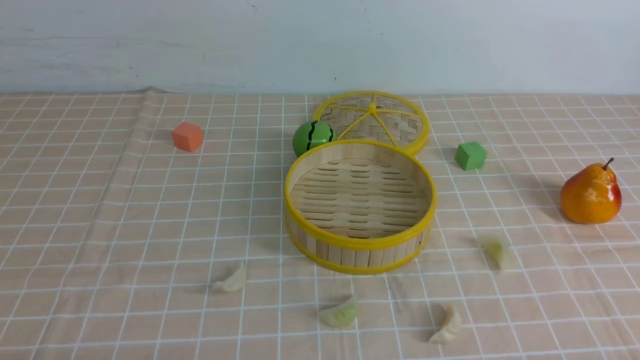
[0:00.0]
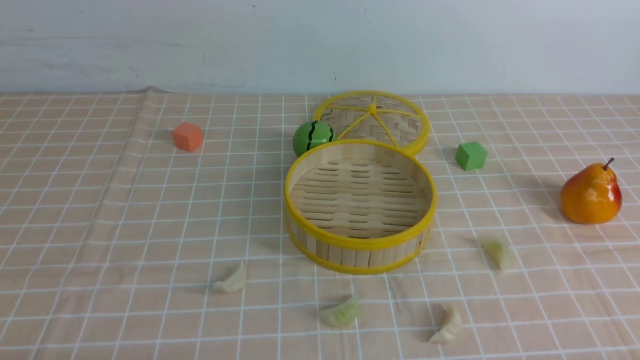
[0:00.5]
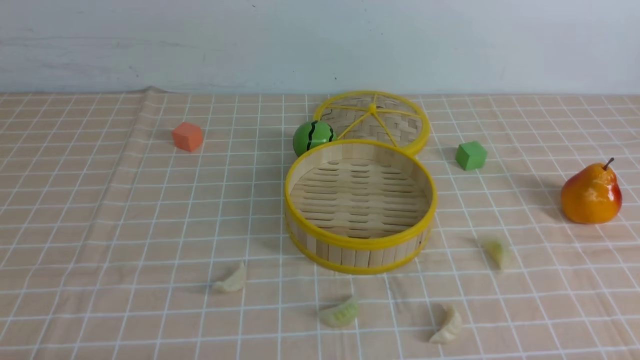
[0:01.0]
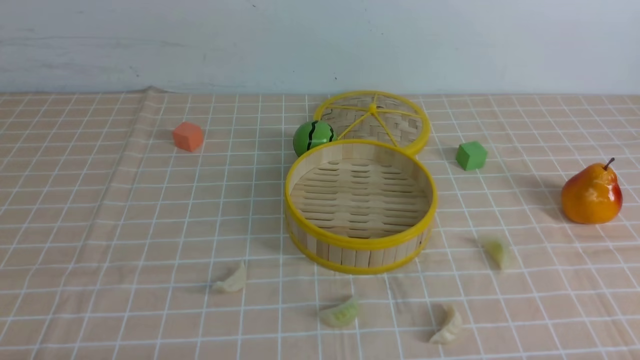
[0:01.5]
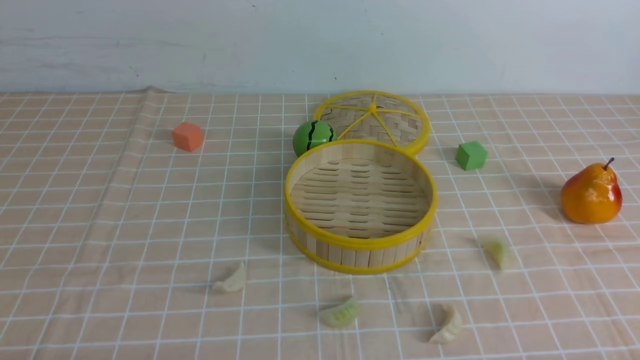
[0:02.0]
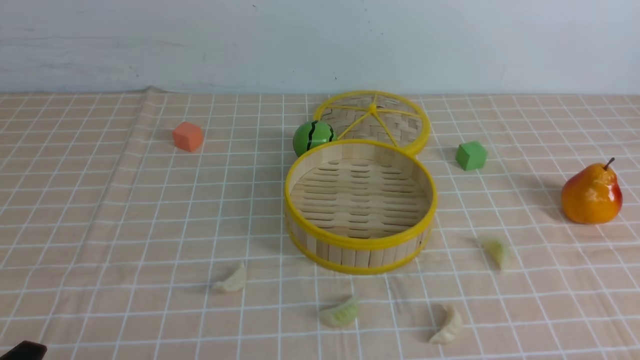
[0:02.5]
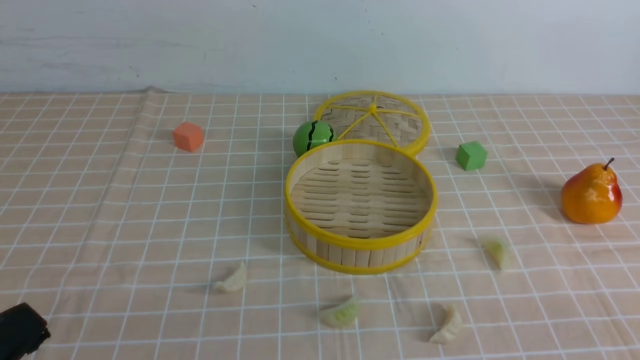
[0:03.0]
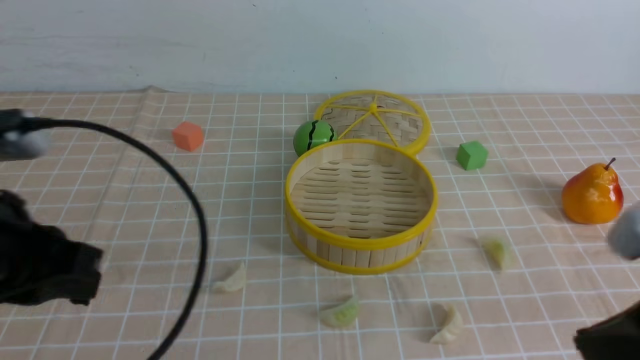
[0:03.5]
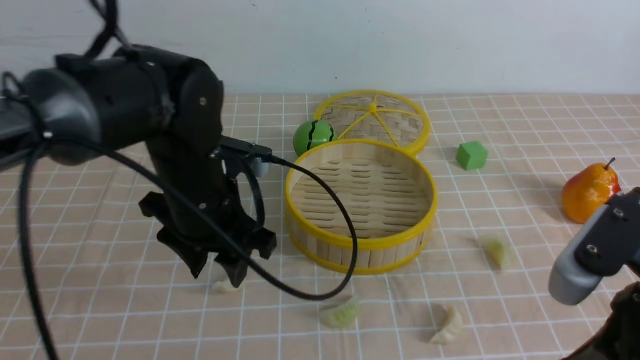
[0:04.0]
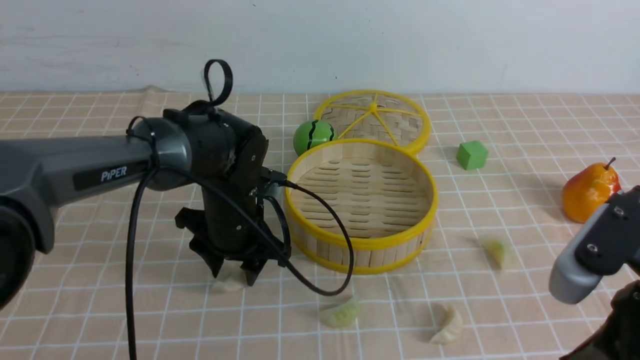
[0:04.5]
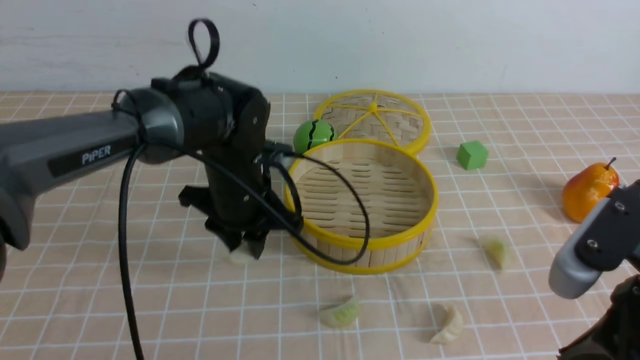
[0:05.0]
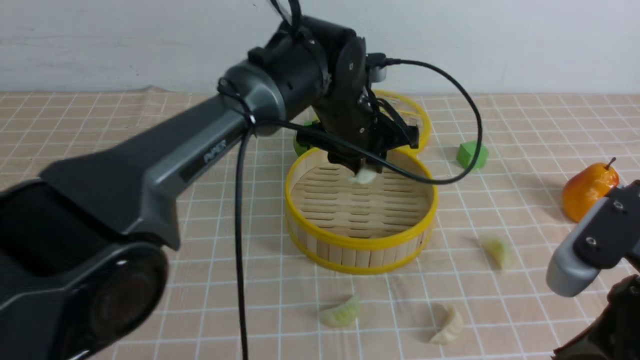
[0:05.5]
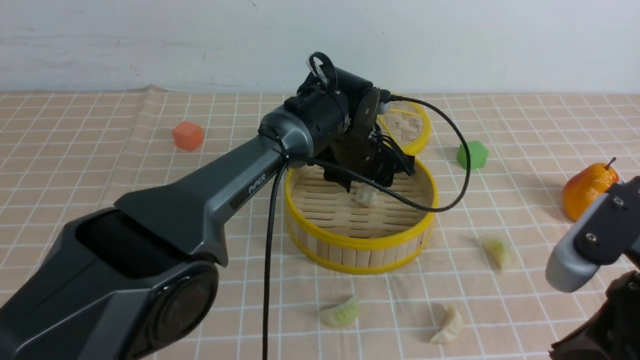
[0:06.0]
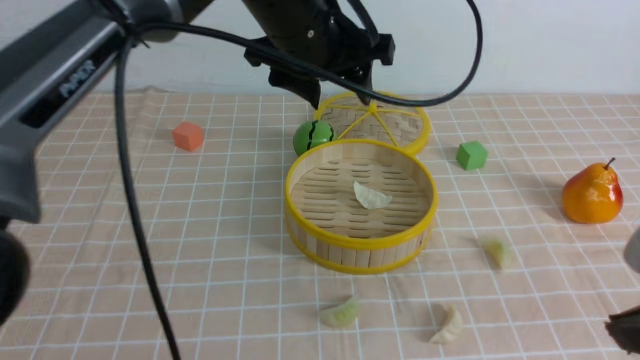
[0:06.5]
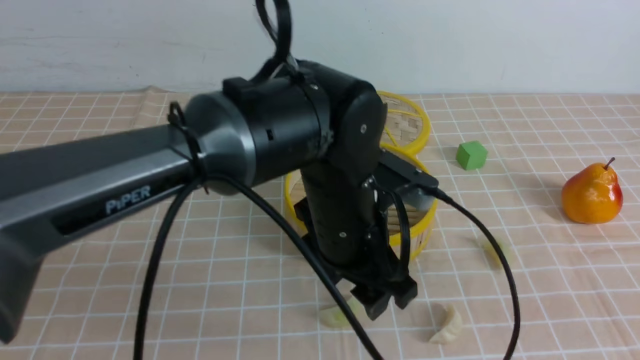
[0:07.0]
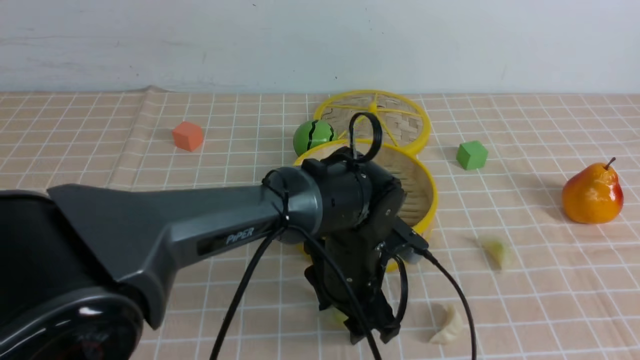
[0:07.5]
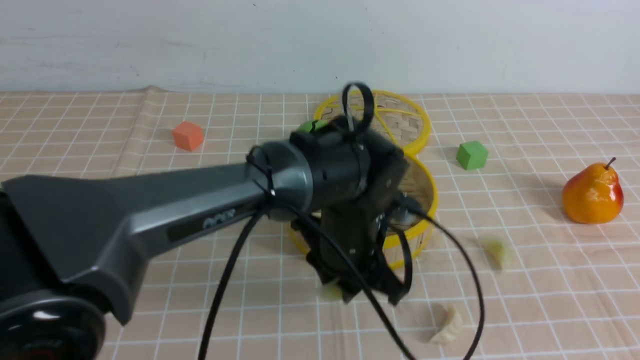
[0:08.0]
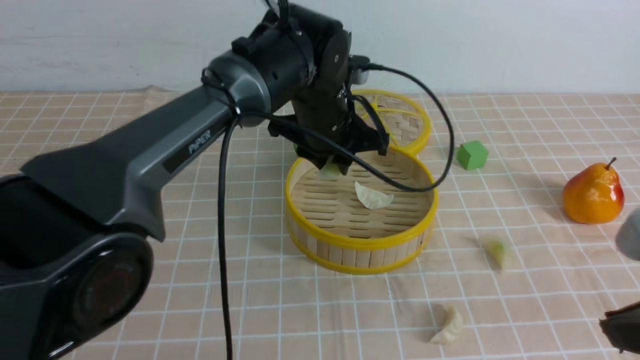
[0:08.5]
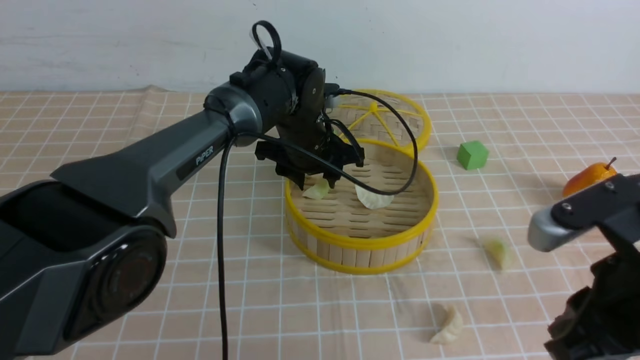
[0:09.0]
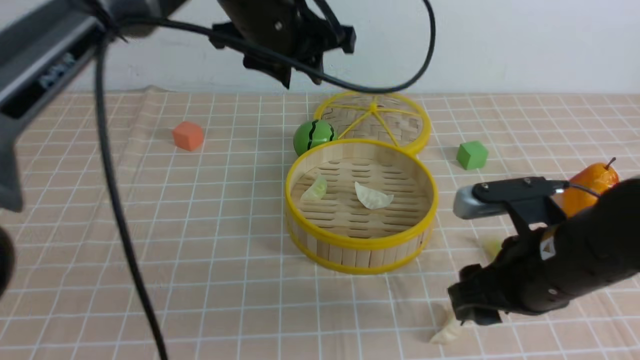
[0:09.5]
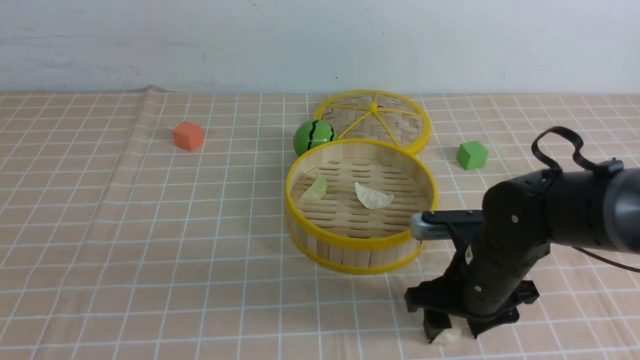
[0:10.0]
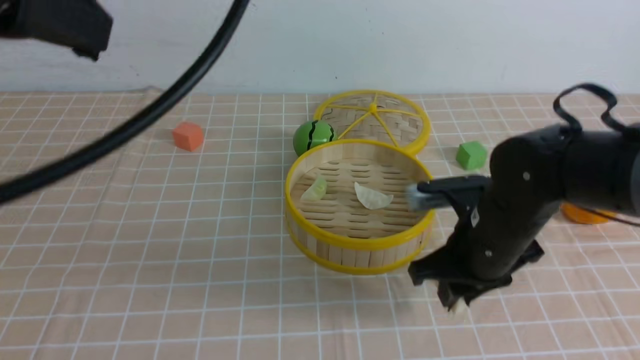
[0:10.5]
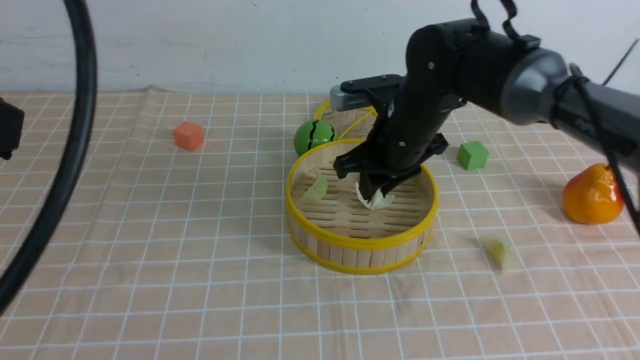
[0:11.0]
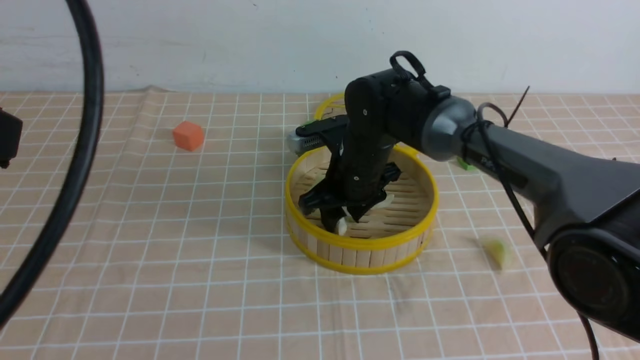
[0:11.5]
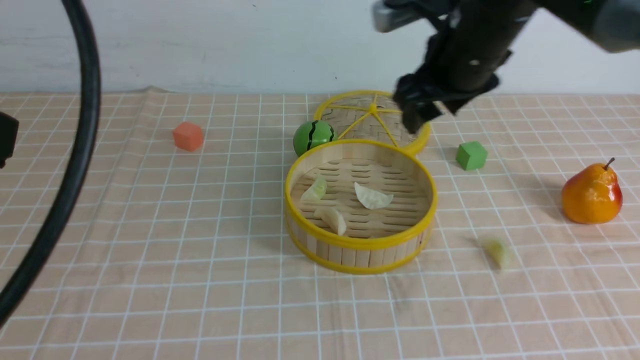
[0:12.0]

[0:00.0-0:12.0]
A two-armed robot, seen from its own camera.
Task of the whole recording: put the dumplings into the steamer on the table with the brown tablecloth.
Step, 0:00.0 to 0:04.5: use the left arm to grab a dumpling.
Step, 0:05.0 to 0:06.0: use the left arm to put the dumpling into the steamer.
Step, 0:06.5 to 0:07.5: use the left arm to grab a dumpling.
Step, 0:08.0 to 0:09.0: use the left arm to put the dumpling into the steamer.
Step, 0:09.5 to 0:10.0: use the right arm to grab a dumpling.
Step, 0:10.5 to 0:11.5: use the right arm to put the dumpling into the steamer.
0:02.0 to 0:04.0: The left gripper is displaced forward and to the right by some 30 cm, and closes and opens again, while the right gripper heads upward, to the left and forward, covering some 20 cm, and closes.
0:04.0 to 0:06.0: The left gripper shifts approximately 20 cm to the right and forward.
0:06.0 to 0:08.0: The right gripper changes place by approximately 5 cm. The left gripper moves up and down over some 20 cm, changing direction 2 times, and closes.
0:08.0 to 0:10.0: The right gripper heads forward, downward and to the left, covering about 30 cm, and opens; the left gripper goes about 35 cm upward and to the left, and closes up.
0:10.0 to 0:12.0: The right gripper shifts roughly 20 cm upward and forward, and closes and opens again; the left gripper moves backward and to the left, approximately 20 cm.

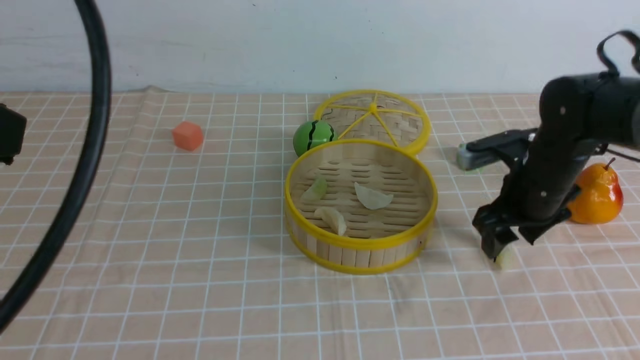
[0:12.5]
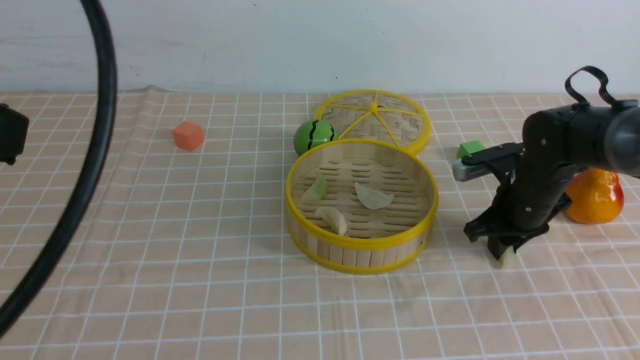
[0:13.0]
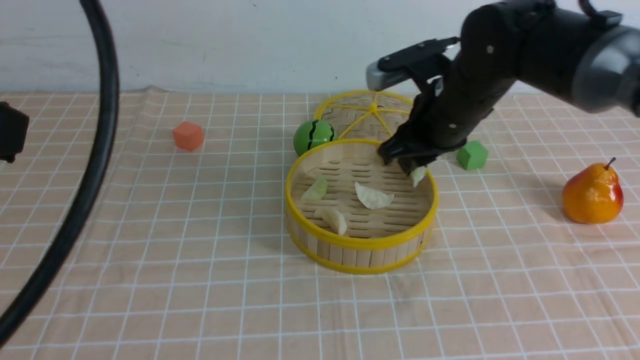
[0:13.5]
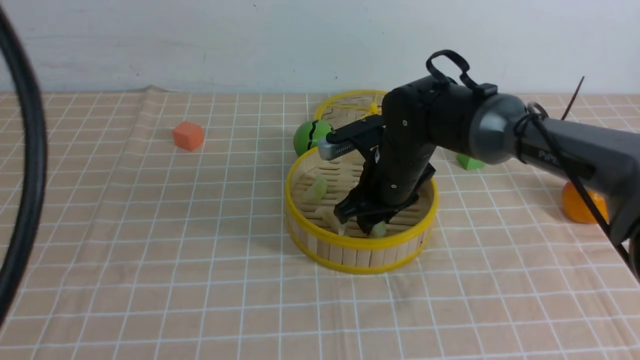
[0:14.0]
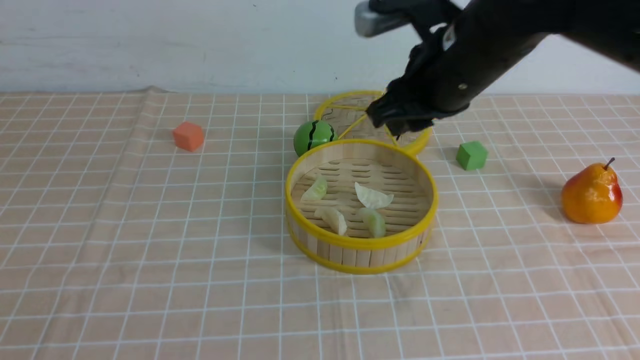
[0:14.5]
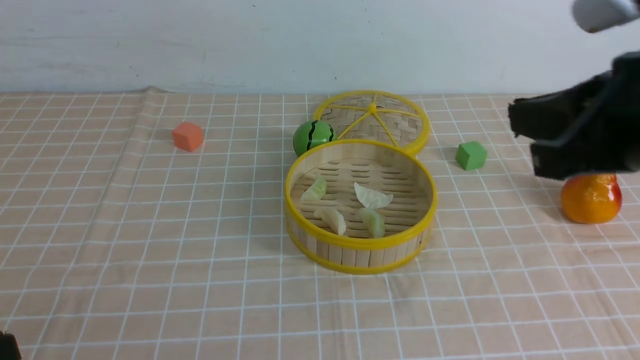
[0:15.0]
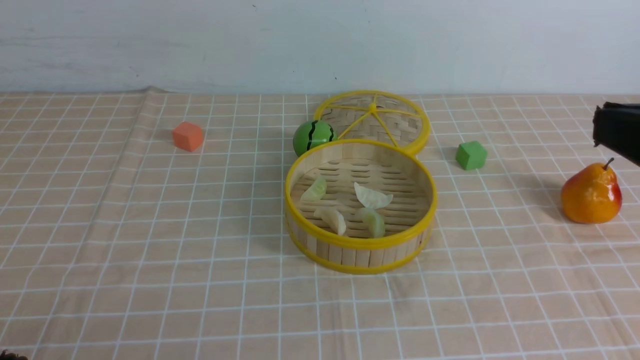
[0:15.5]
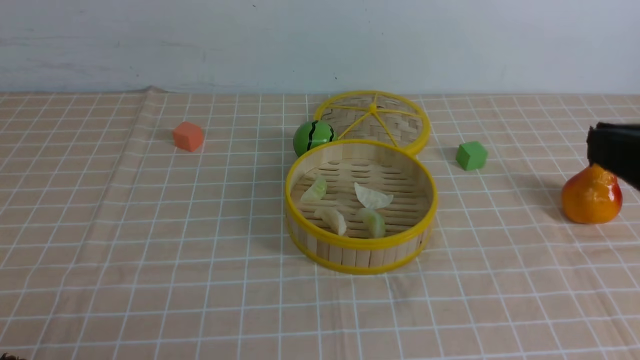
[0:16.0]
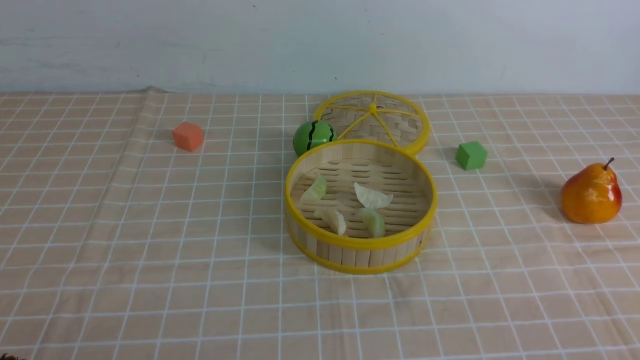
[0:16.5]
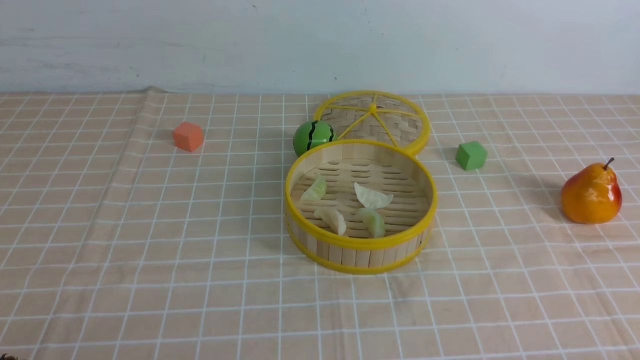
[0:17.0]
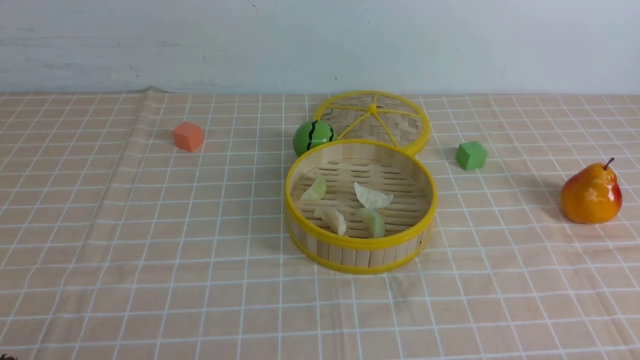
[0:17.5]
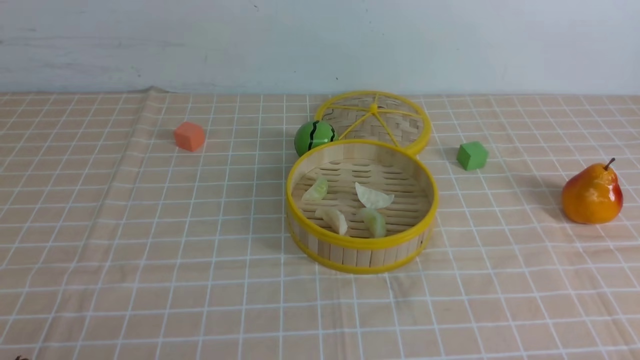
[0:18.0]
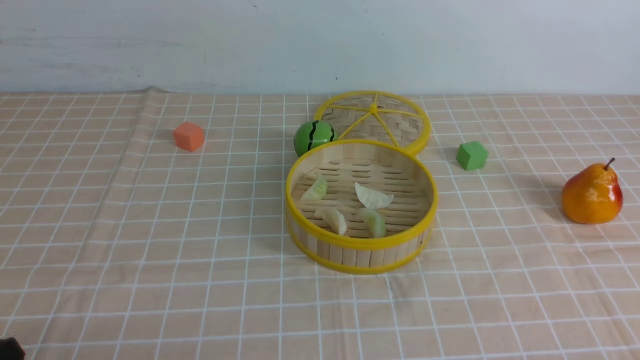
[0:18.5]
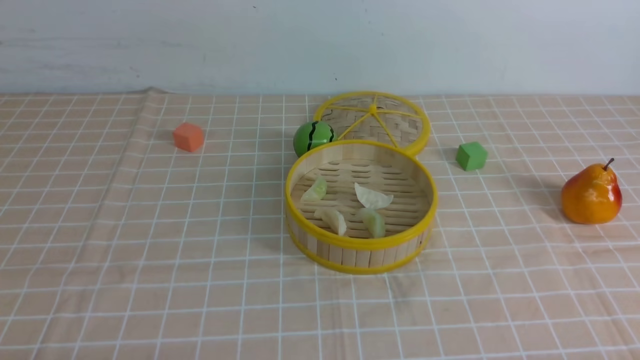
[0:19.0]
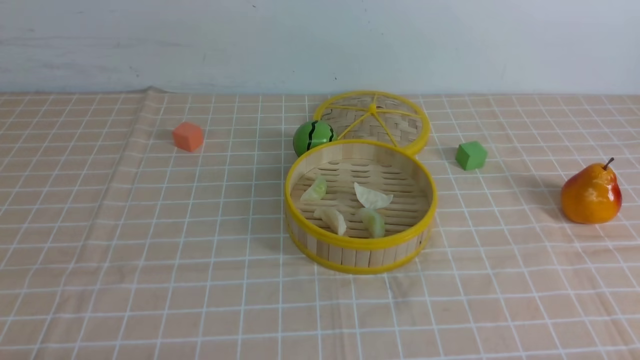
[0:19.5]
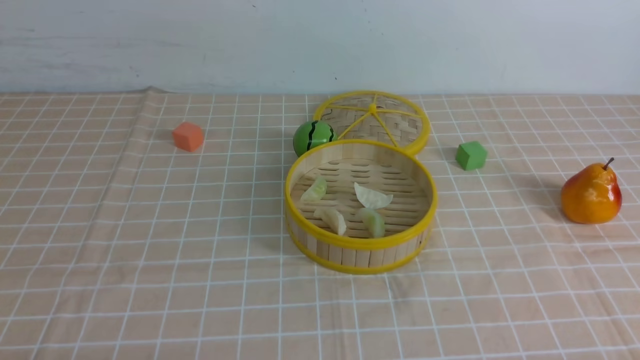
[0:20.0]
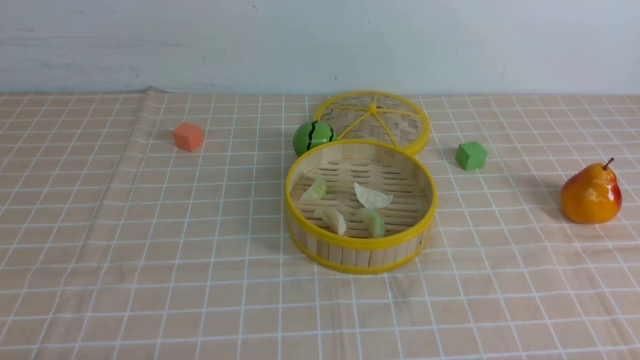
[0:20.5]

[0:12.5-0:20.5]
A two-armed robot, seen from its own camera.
Task of the whole recording: put the dumplings into the steamer on the table with the brown tablecloth.
Step, 0:13.5 to 0:14.0: use the right arm to put the dumpling into the steamer.
0:12.5 to 0:14.5: The right gripper moves up and down over about 20 cm, changing direction 2 times, and closes its fingers; the left gripper goes about 15 cm downward and backward.
0:14.5 to 0:16.5: The right gripper is displaced backward, to the right and downward by about 35 cm, and closes up, while the left gripper travels downward by about 10 cm.
0:16.5 to 0:18.5: The right gripper goes roughly 5 cm downward.
